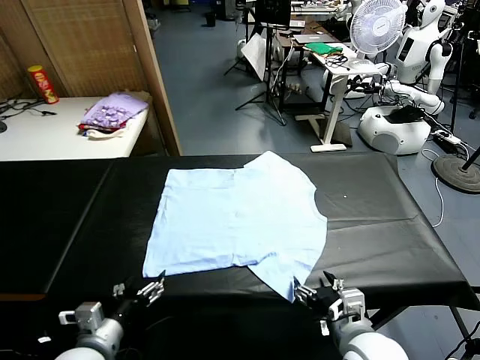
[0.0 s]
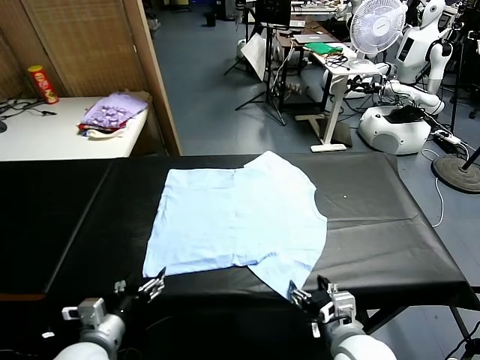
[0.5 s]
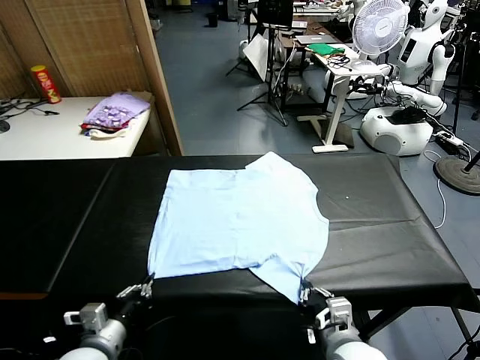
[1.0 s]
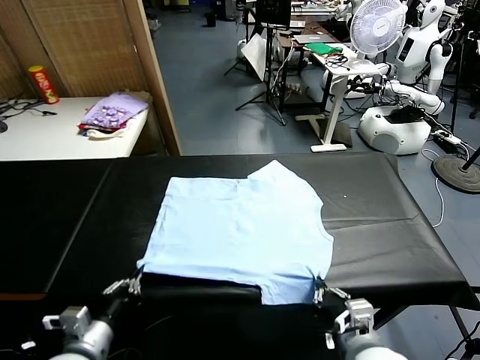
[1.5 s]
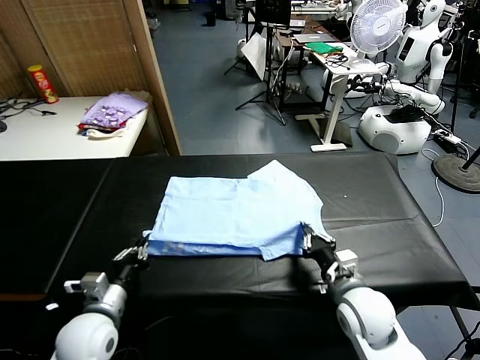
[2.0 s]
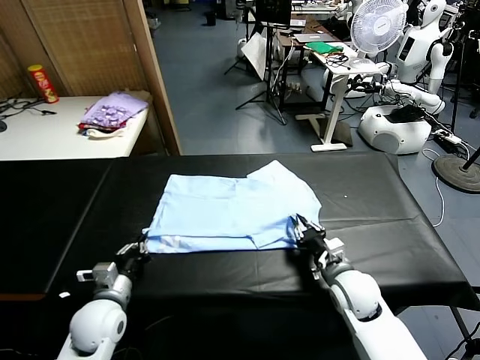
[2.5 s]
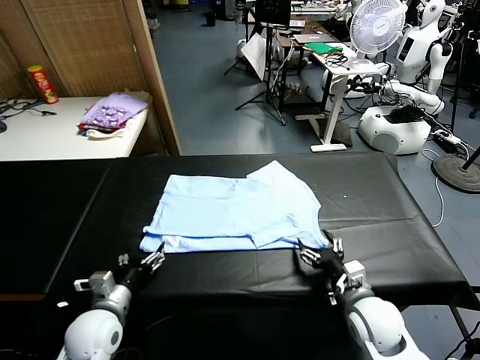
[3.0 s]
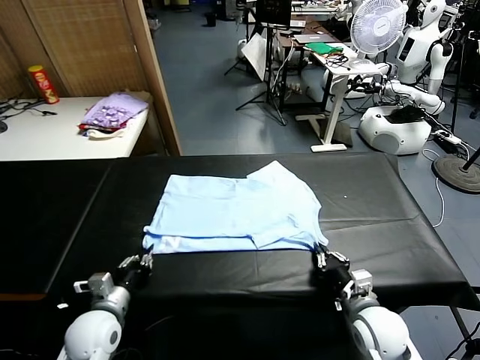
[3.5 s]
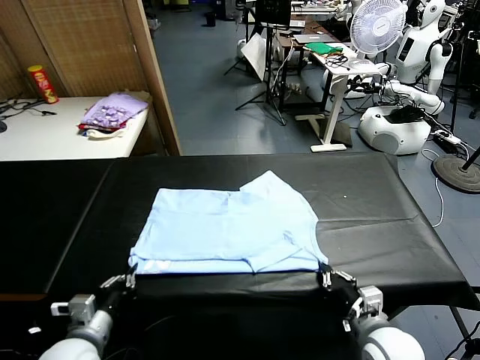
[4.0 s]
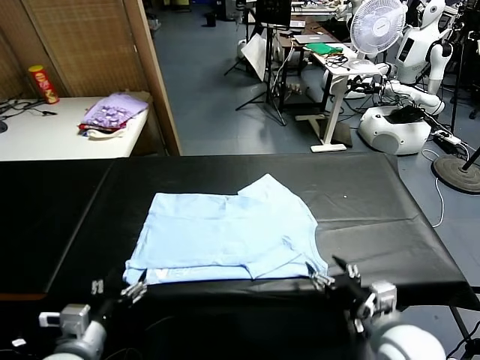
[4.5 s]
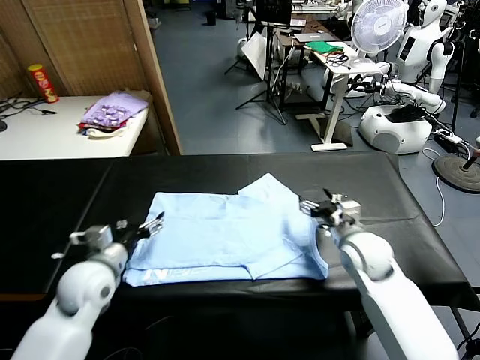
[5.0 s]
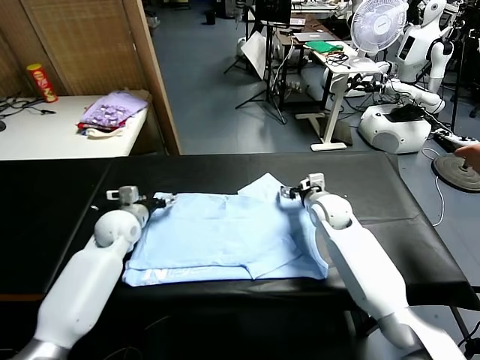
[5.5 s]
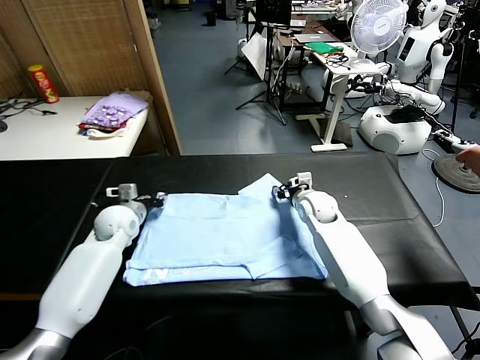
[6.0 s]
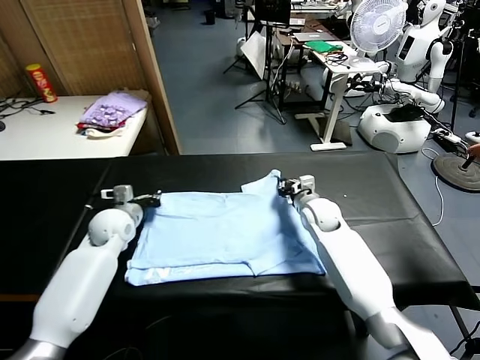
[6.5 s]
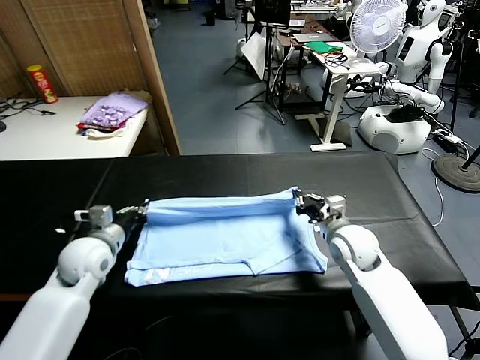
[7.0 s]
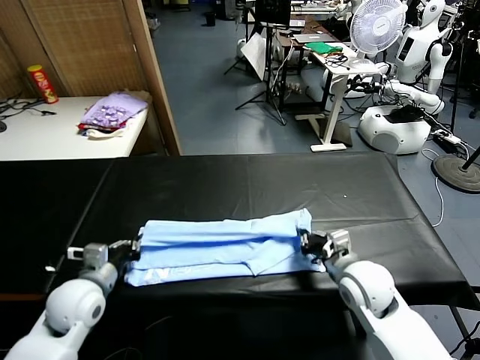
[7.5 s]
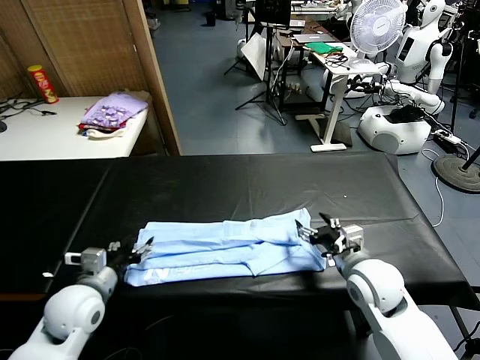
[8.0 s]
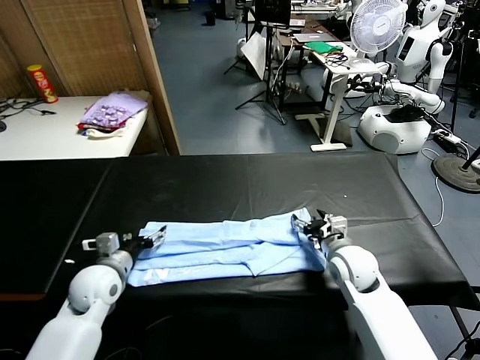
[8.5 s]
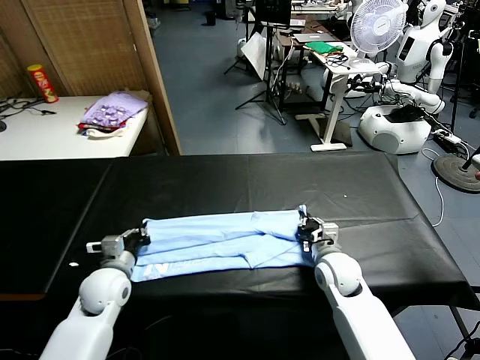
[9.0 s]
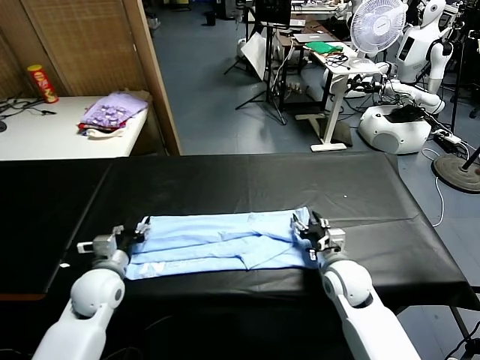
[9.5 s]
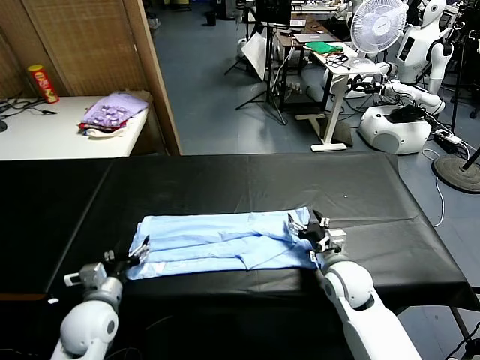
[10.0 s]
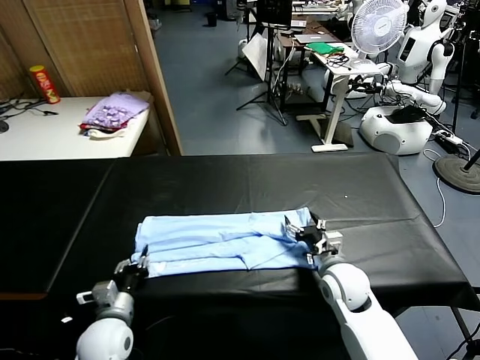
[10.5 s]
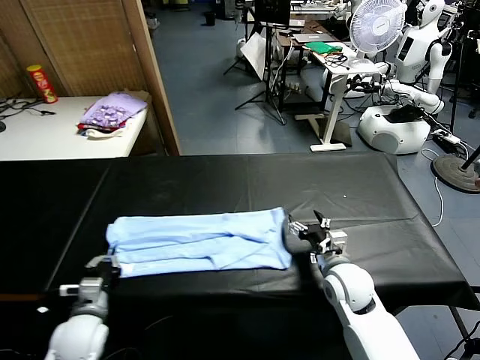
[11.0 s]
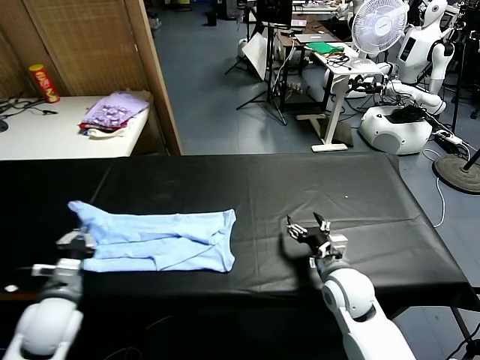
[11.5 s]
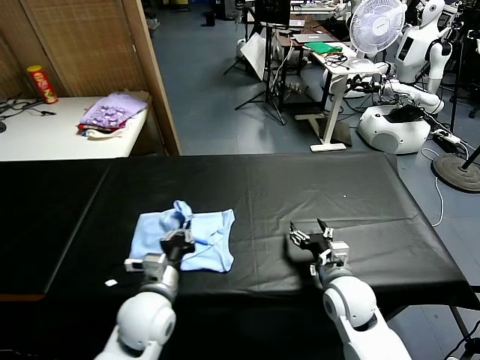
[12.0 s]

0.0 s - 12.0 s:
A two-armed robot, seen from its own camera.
Task of the whole recording: fold and organize the clothes.
Step, 0.0 s - 0.5 s: use both grippers simultaneously to clamp the lower edge of the clothing fabric.
Step, 1.0 s - 2.5 s: use both grippers to drag the lower edge of the fabric forward and fold it over the upper edge.
Step, 3.0 s - 4.0 s: Drag the clothes downward with both gripper.
Step, 4.5 s - 6.0 s: use both grippers simultaneously to clamp the upper edge of the clothing fabric.
Step, 6.5 s - 7.5 s: use both grippers to drag the upper edge of the fabric backward and fold it over the lower edge.
Step, 8.0 s - 10.5 s: use the left gripper to clamp the left edge of the fabric.
2.0 s - 4.0 s: The left gripper shifts roughly 10 cm backward, and opens, then closes again. Meanwhile the right gripper heads backward, covering some 15 cm, and opens, then closes again.
4.0 s - 6.0 s: Both grippers travel together forward, about 35 cm. The left gripper opens, then closes once more; the right gripper opens and closes again.
6.0 s - 8.0 s: The grippers both shift backward by some 20 cm. The right gripper opens its fingers. Meanwhile the left gripper opens its fingers.
8.0 s - 10.0 s: The left gripper ends up some 5 cm from where it was, and closes and opens again. Meanwhile the right gripper heads downward, covering about 5 cm, and closes, then opens again.
10.0 s - 12.0 s: The left gripper heads to the right, covering some 15 cm, and closes up.

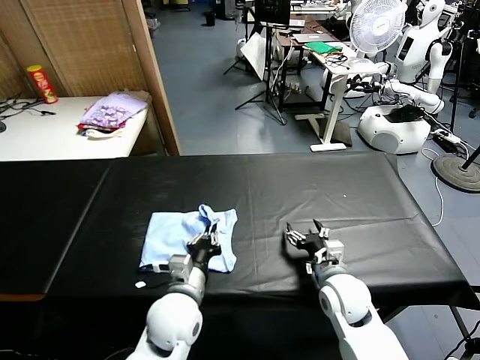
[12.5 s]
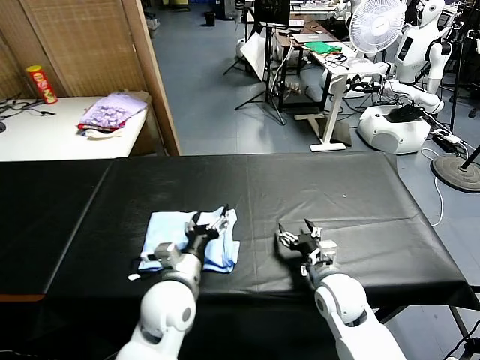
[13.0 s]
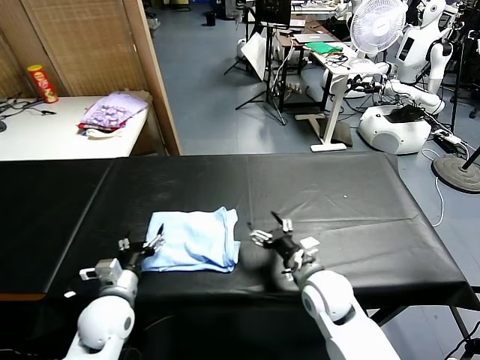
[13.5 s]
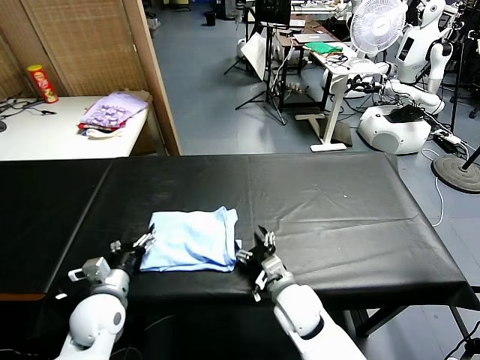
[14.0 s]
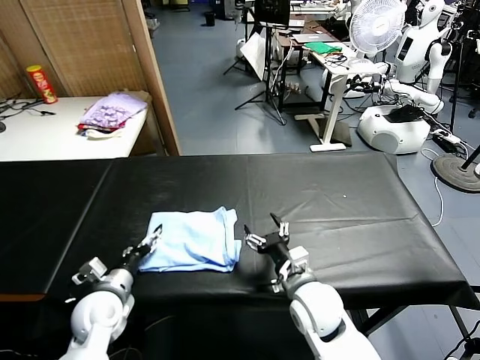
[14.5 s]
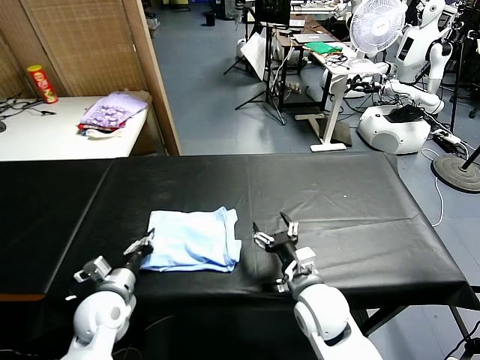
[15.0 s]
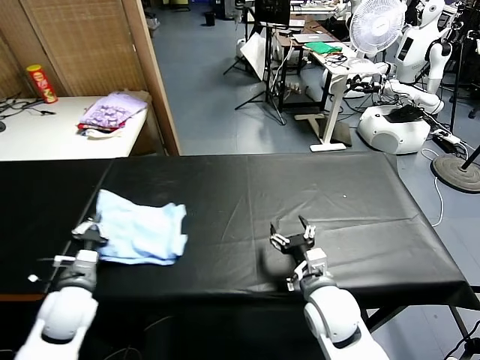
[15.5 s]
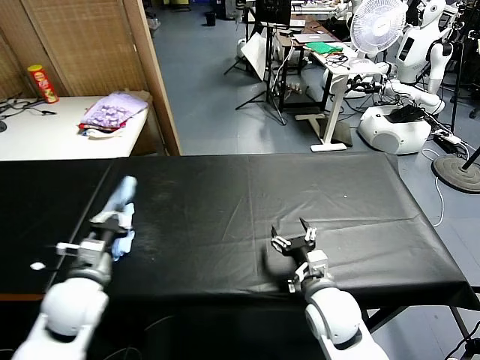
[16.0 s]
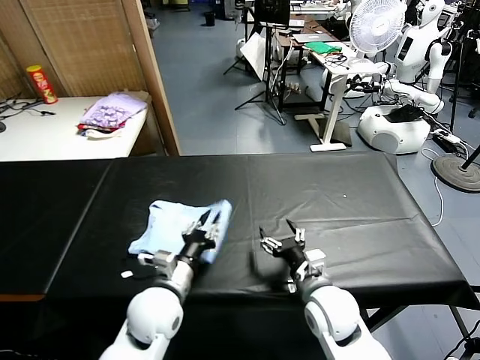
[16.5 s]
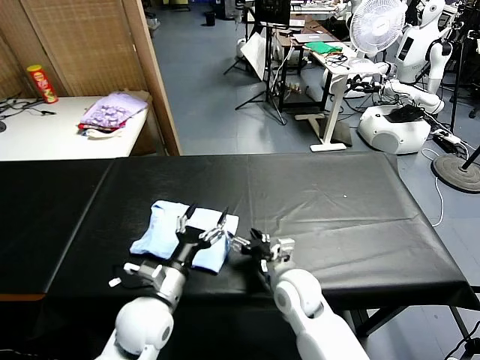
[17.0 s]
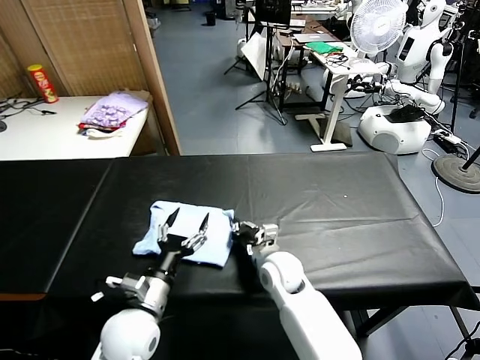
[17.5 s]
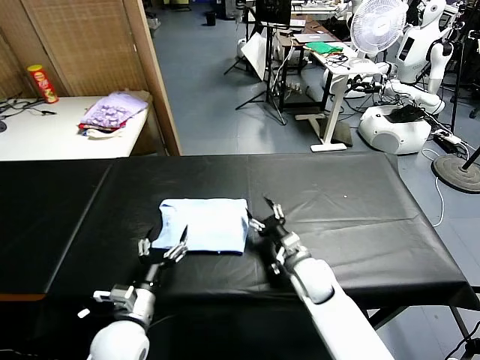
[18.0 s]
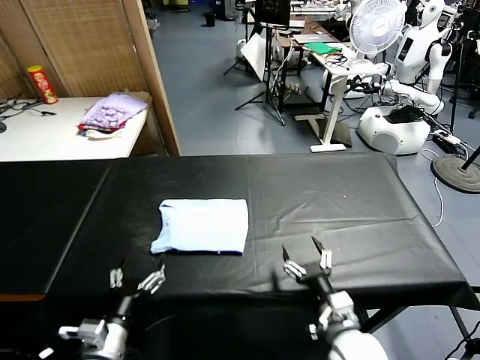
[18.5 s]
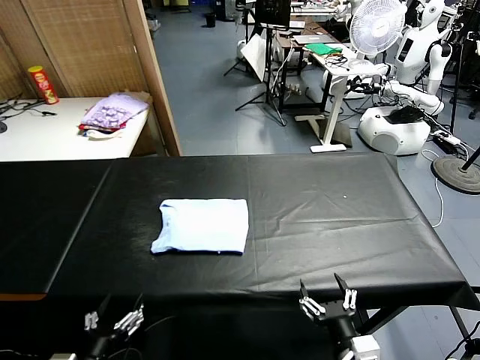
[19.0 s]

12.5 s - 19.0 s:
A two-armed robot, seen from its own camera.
Task of the whole recording: fold and organize the clothes.
Step, 13.0 s - 16.5 s: Flip the folded clothes over with left gripper.
Step, 17.0 s - 17.5 s: Drag the clothes to the center of the table.
12.5 s - 14.5 s: The right gripper shifts about 5 cm to the left; the left gripper goes some 20 cm to the left, and opens.
14.5 s - 17.0 s: The left gripper goes about 15 cm to the right, and closes, then opens again.
17.0 s - 19.0 s: The right gripper goes about 25 cm backward and to the right, and closes, then opens again; the left gripper moves backward and to the left, some 20 cm.
